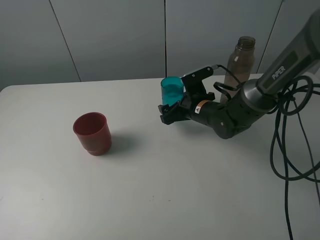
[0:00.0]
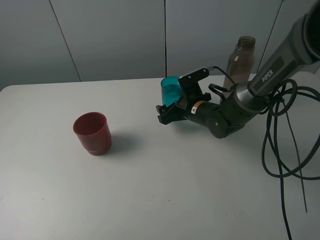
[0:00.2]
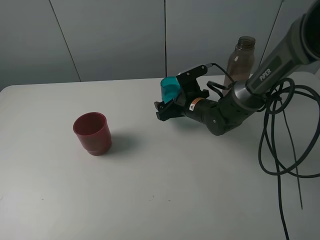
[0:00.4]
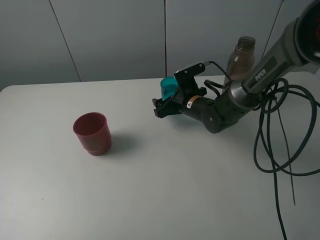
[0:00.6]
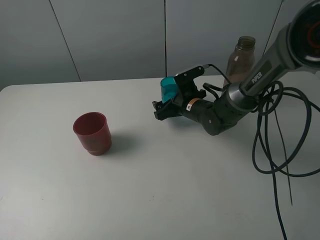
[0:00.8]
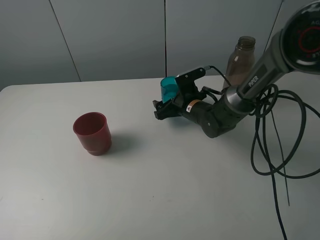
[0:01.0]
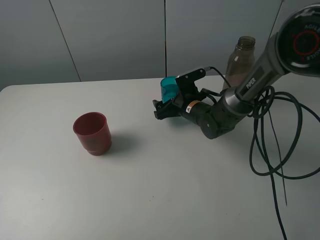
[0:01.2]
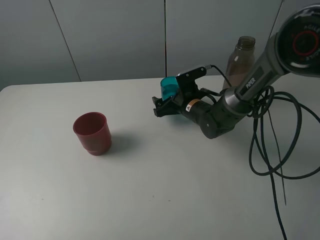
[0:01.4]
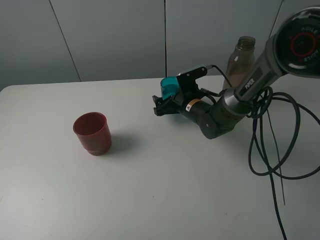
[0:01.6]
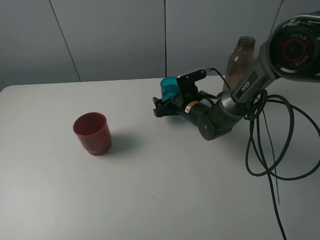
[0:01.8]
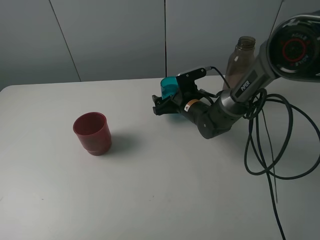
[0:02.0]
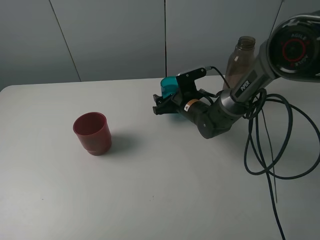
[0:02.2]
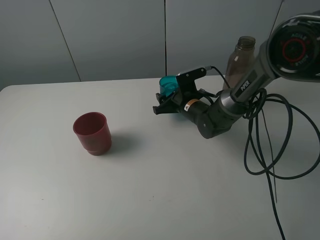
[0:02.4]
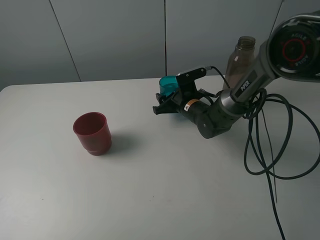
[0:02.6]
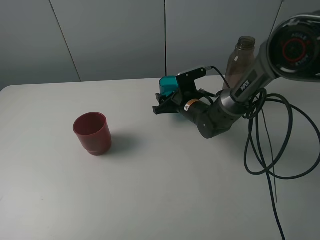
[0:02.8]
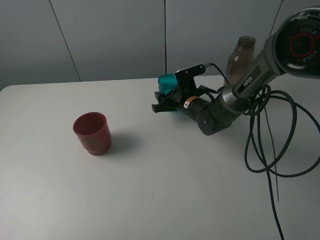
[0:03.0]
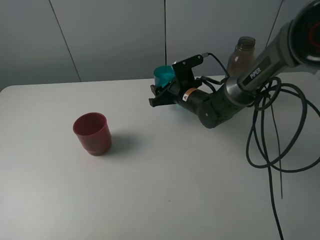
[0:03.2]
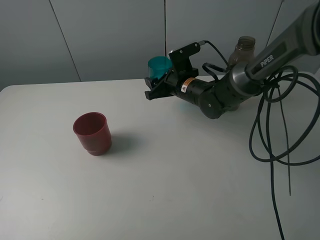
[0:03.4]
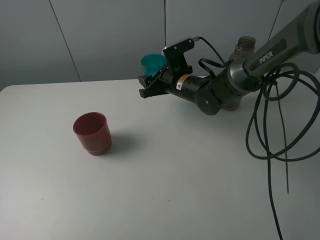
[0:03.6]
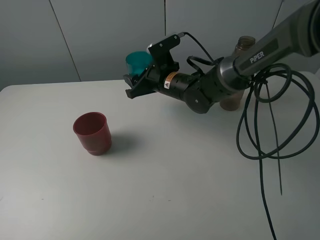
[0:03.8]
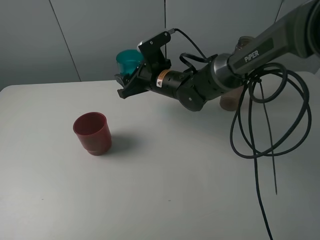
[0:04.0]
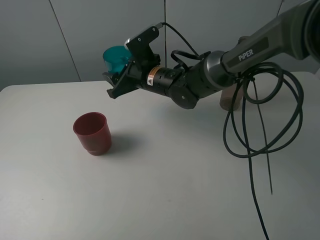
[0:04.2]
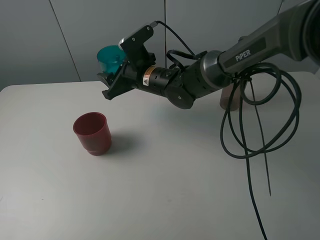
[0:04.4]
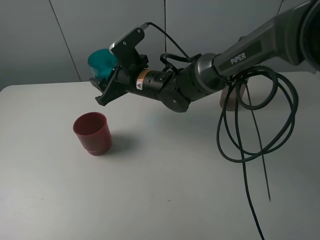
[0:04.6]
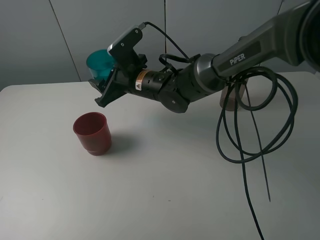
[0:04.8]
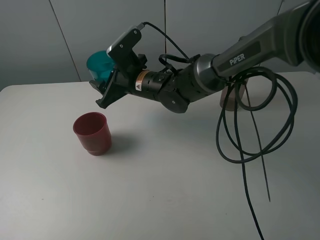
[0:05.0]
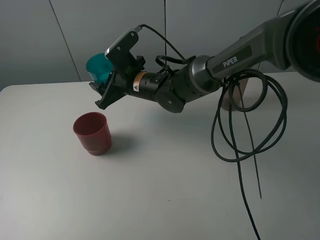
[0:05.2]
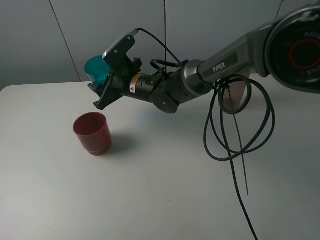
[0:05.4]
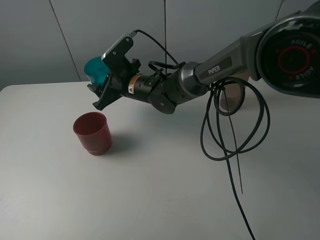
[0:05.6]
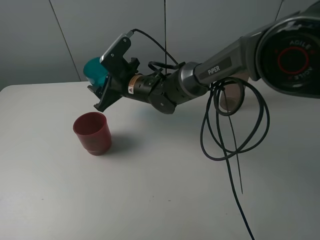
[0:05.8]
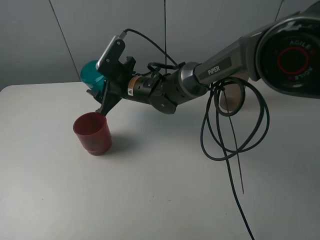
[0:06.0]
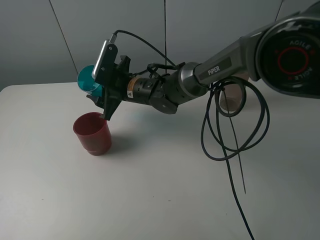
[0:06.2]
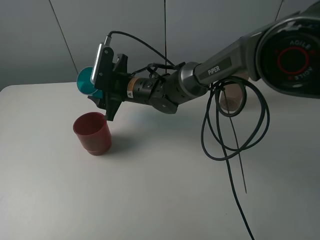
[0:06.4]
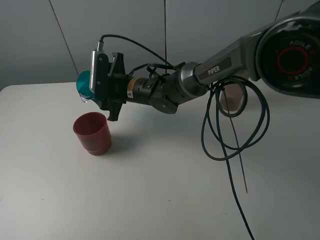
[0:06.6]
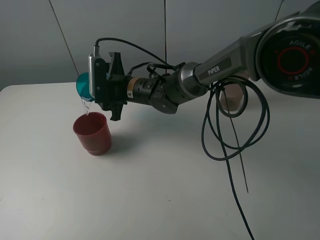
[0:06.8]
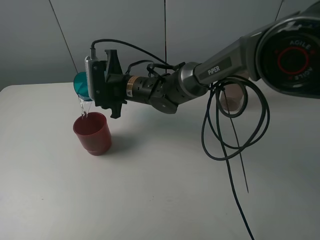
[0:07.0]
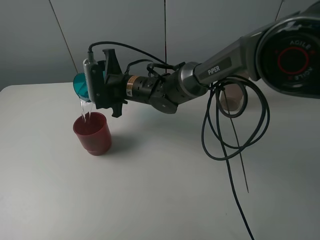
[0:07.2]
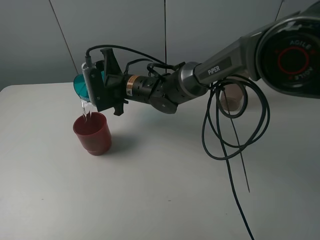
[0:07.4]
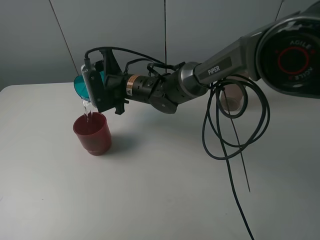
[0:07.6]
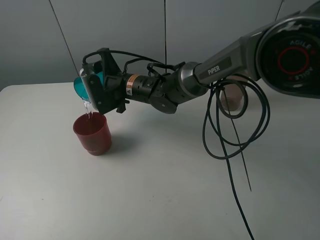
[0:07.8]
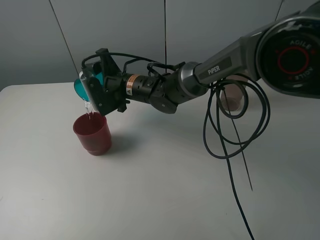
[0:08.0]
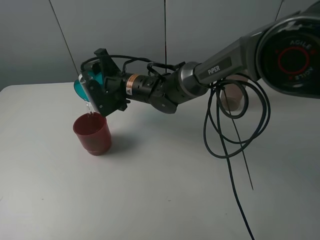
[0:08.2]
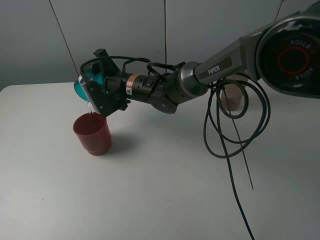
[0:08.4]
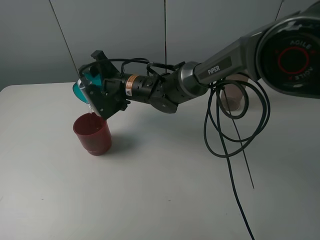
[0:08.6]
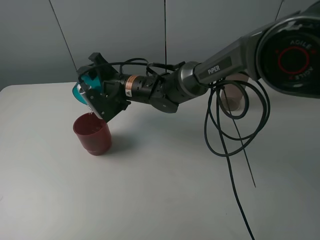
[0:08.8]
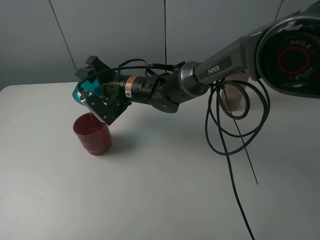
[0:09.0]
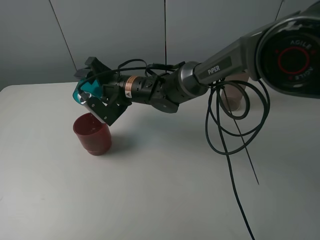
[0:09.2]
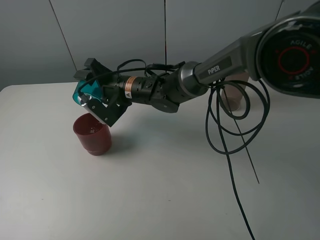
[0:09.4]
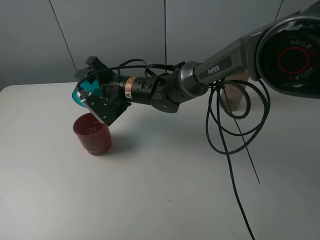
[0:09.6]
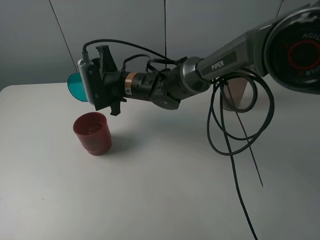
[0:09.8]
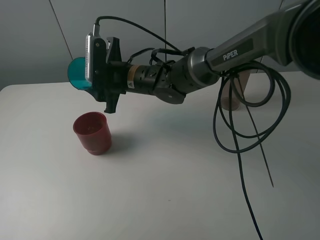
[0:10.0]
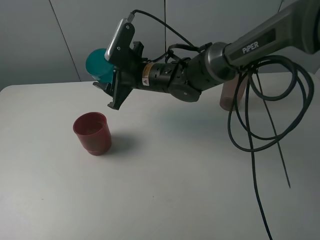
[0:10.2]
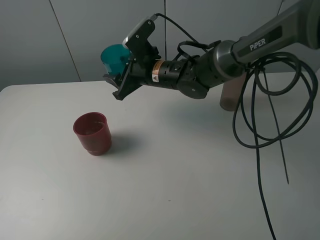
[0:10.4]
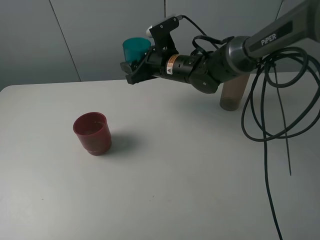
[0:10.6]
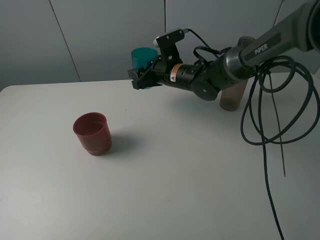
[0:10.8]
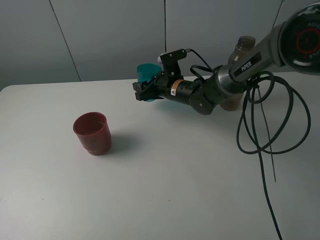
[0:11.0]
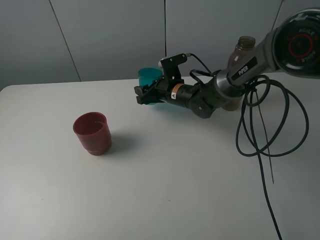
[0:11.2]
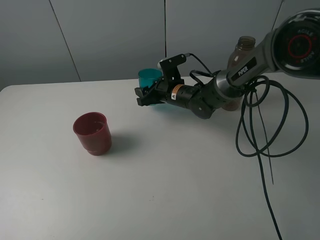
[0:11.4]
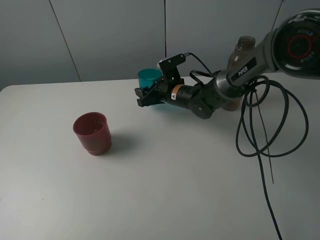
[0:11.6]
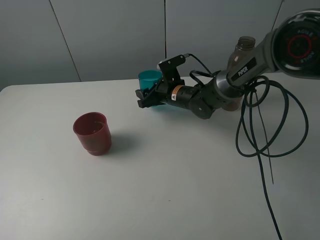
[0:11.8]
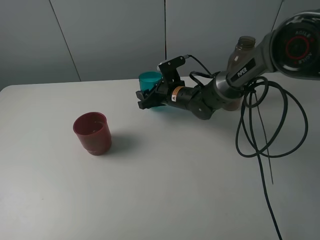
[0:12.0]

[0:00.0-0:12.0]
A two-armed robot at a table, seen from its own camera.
Task of the whole recording: pick up the bottle and pour water into the cup, then pick up the cup containing water and pour it into another cup.
Step, 0:00.0 to 0:02.4: Grasp the blue cup with the right gripper.
Step, 0:02.6 to 0:09.6: Pour water from blue cup to red cup with the right gripper.
0:00.0 to 0:01.6: The grippers move only a little.
0:01.6 to 0:03.0: The right gripper closes.
0:03.0 to 0:04.4: The right gripper heads to the left and upward, covering some 15 cm.
0:04.4 to 0:06.0: There are only small adjustments of the grippers.
0:09.0 to 0:10.4: The right gripper travels to the right by approximately 5 cm.
0:10.4 to 0:12.0: The right gripper travels downward by roughly 10 cm.

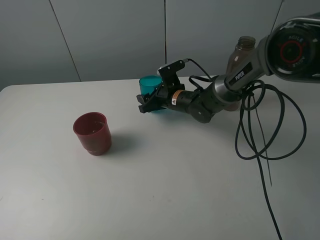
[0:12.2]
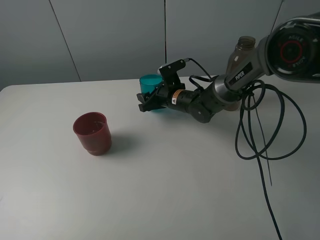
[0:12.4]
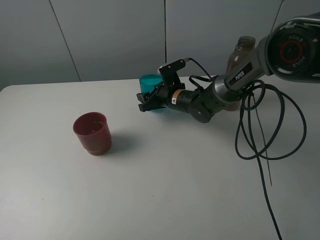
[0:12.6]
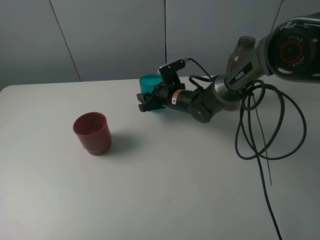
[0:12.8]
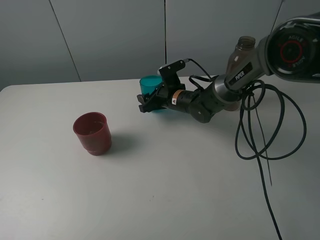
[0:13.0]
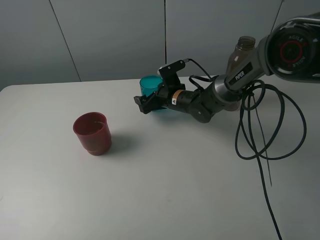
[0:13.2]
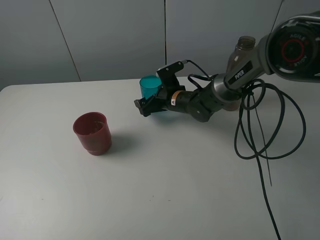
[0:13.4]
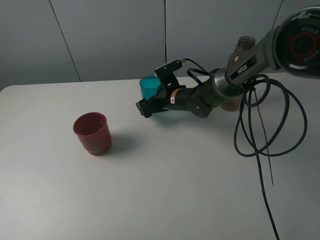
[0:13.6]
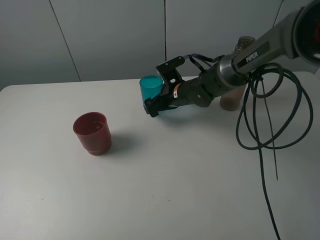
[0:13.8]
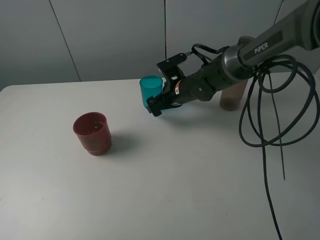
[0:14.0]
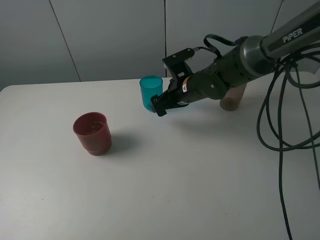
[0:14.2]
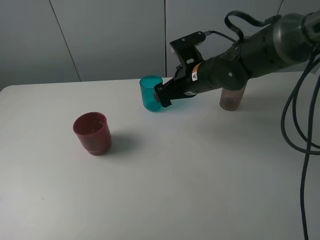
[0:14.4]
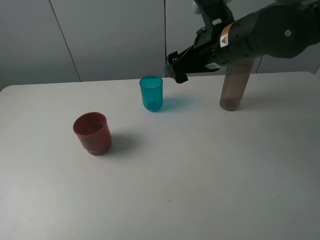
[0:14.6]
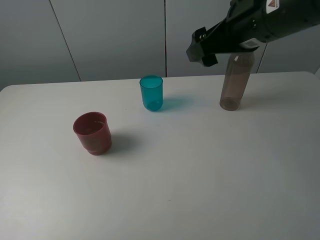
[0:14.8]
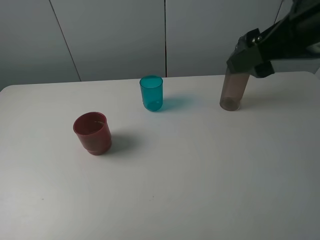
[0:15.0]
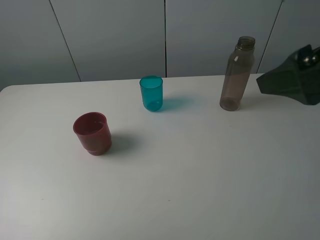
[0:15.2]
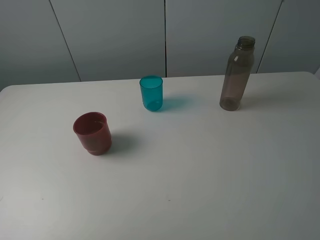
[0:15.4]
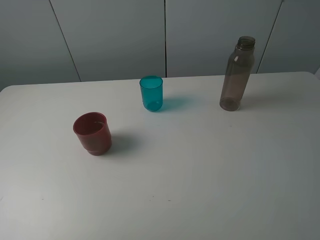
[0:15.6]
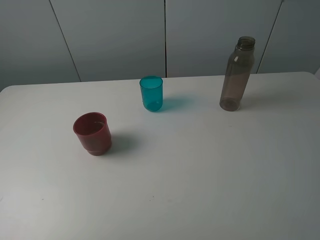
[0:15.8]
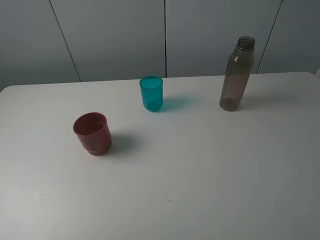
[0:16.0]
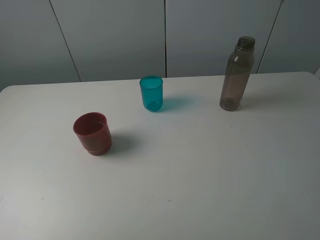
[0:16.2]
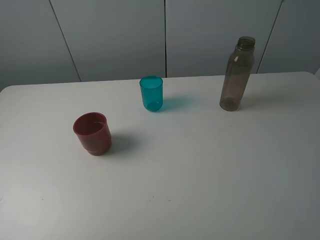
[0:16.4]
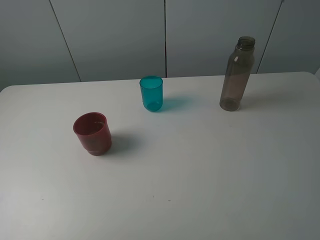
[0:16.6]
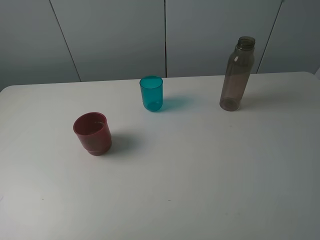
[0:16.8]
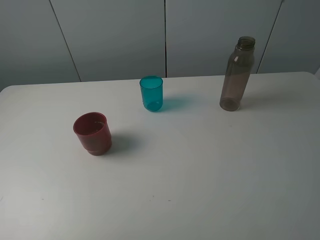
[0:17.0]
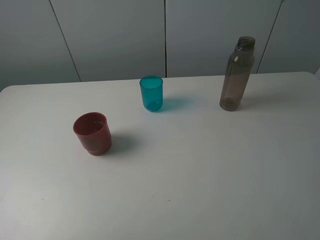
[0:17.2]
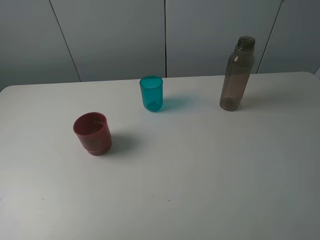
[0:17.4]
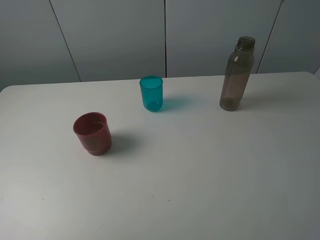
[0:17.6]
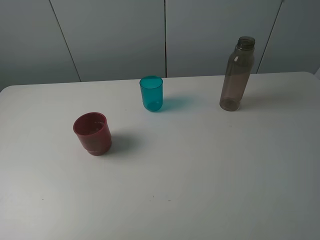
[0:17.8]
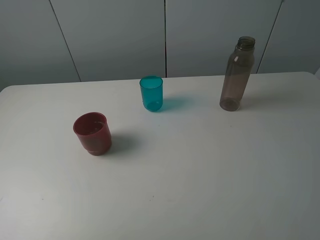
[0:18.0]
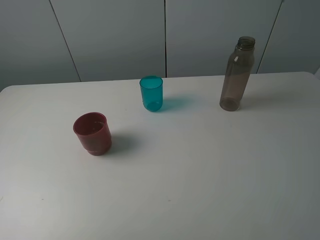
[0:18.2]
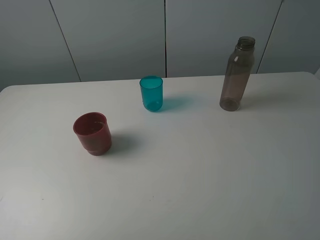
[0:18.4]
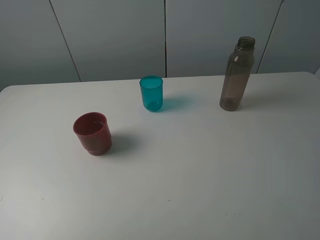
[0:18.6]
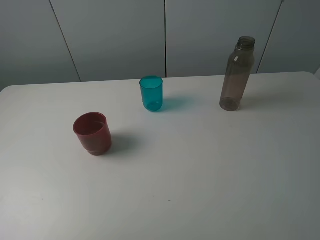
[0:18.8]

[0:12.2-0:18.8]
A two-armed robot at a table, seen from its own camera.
Task of the whole recording: pick up the bottle and pour water into the cup, then pick up the cup containing water and pour it into another cup.
0:12.2 to 0:13.8: The right gripper opens its fingers.
0:13.8 to 0:15.4: The right gripper moves backward, upward and to the right, about 50 cm.
0:17.2 to 0:18.8: Both grippers stay about where they are.

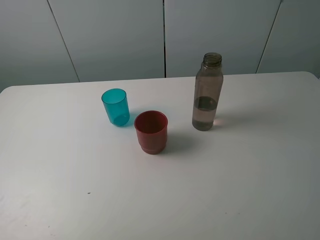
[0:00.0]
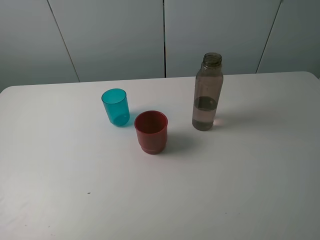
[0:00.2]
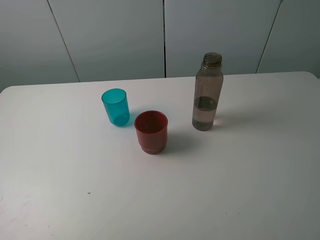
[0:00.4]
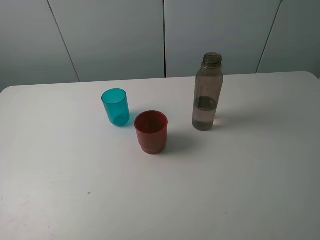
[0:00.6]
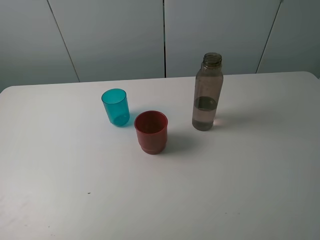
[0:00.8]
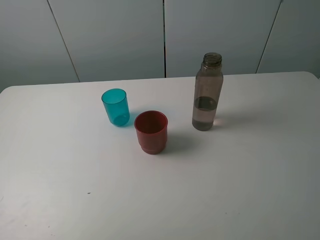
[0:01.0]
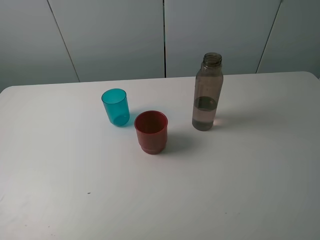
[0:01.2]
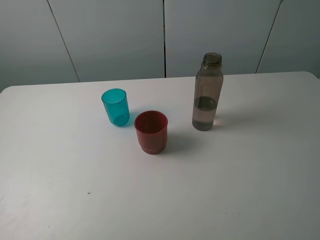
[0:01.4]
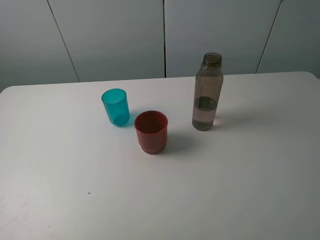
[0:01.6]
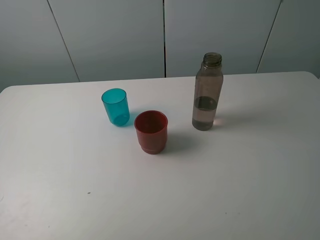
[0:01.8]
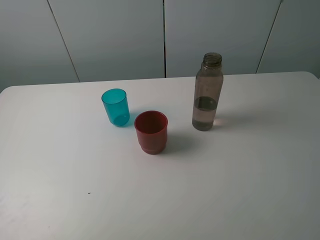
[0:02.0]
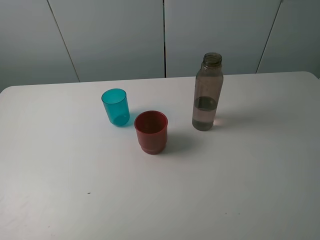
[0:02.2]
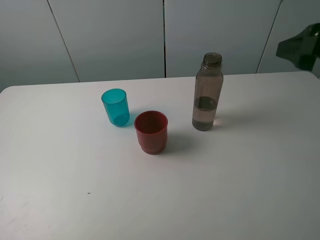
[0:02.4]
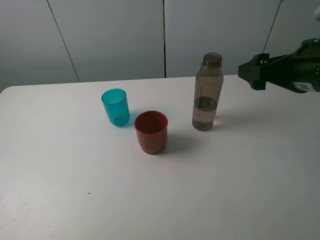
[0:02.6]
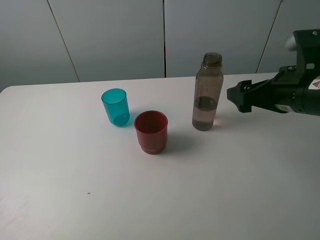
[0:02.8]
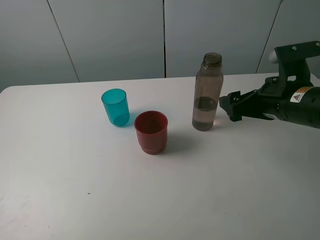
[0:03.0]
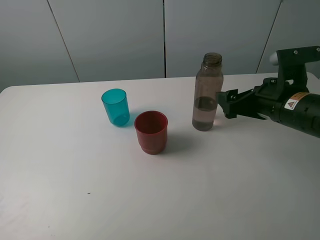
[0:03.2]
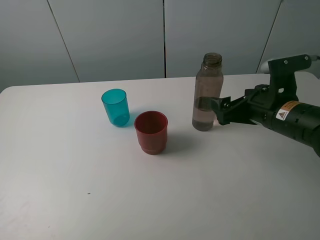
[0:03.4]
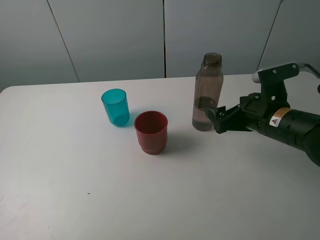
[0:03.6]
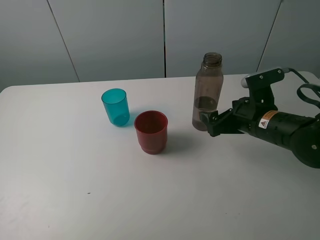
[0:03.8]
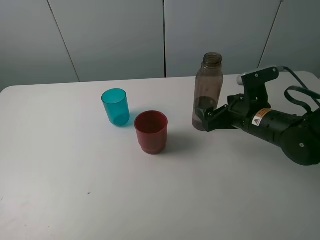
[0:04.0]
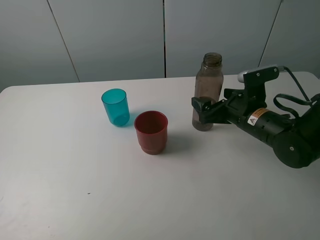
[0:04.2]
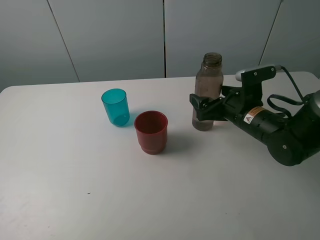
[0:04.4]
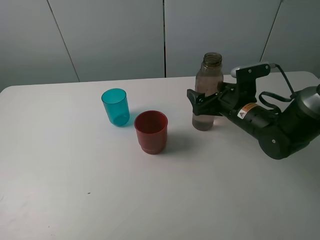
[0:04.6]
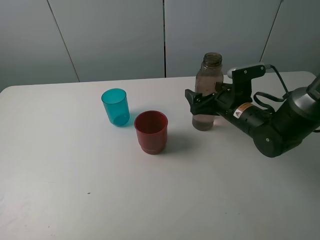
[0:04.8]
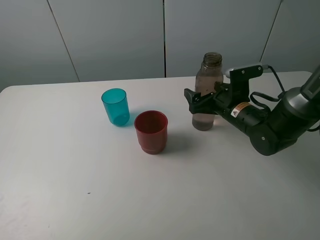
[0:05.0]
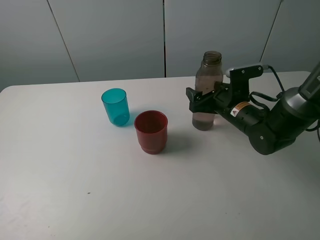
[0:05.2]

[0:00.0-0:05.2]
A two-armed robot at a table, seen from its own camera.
Task of the whole recording: pick up the bottle and pour water into the cup, then pick up the cup containing water and pour it into another cup.
0:01.8 to 0:03.4: The right gripper is displaced forward and downward by about 25 cm.
0:03.4 to 0:05.2: The right gripper travels forward and downward by about 10 cm, and closes.
